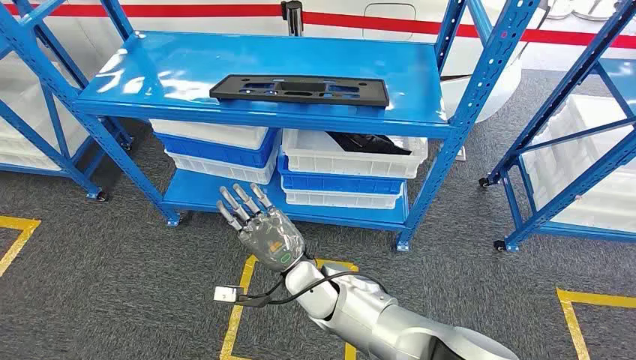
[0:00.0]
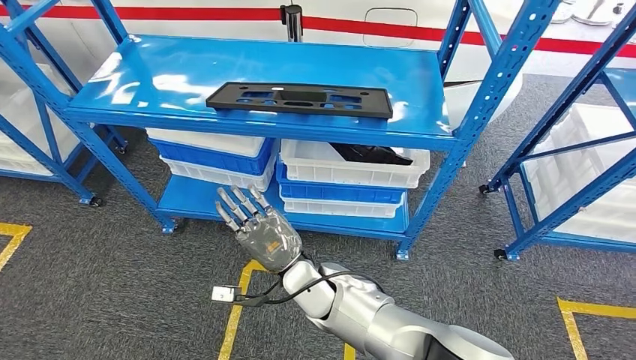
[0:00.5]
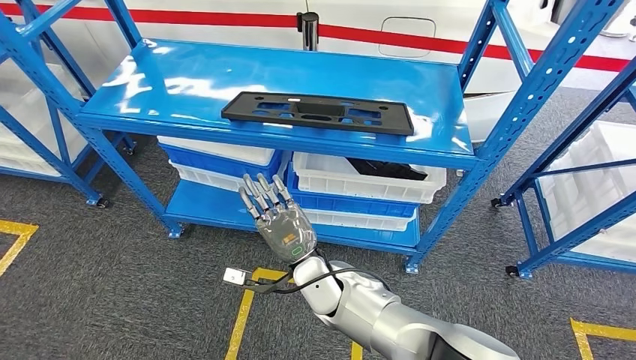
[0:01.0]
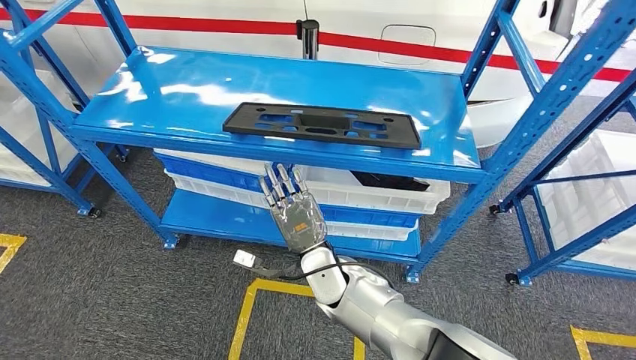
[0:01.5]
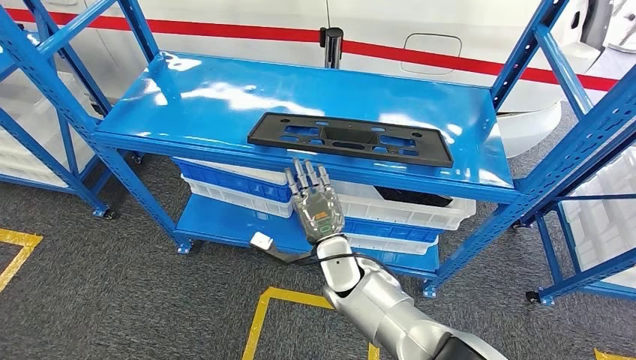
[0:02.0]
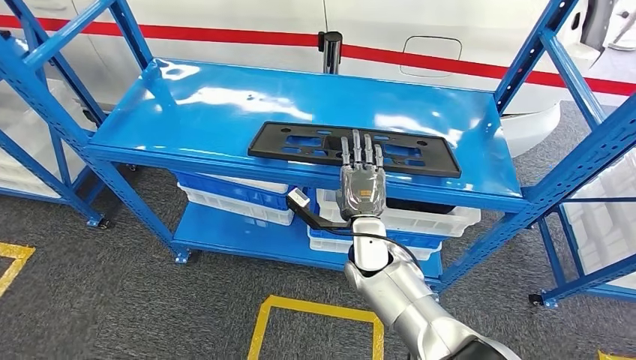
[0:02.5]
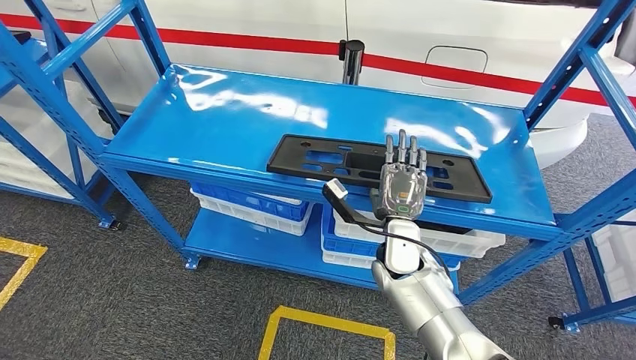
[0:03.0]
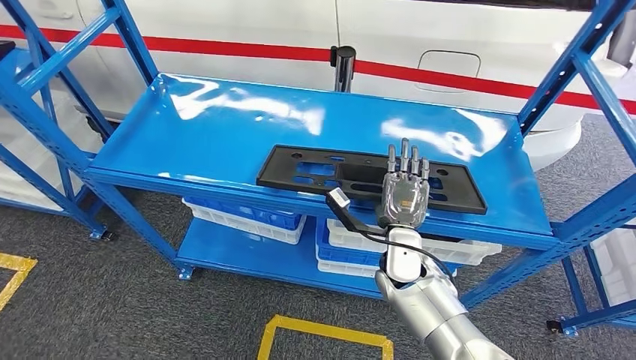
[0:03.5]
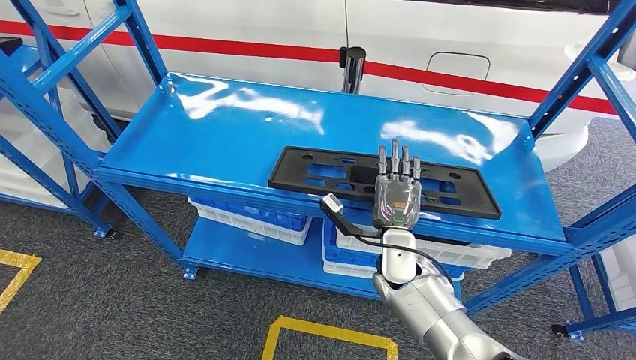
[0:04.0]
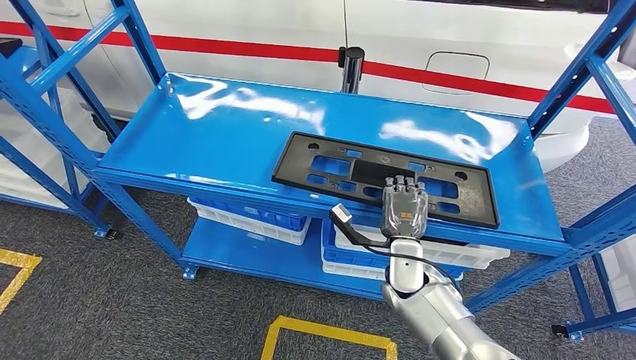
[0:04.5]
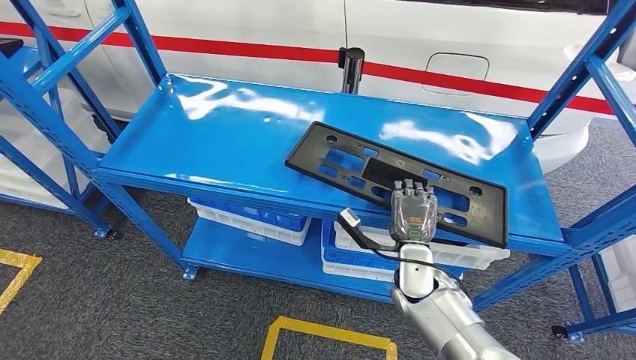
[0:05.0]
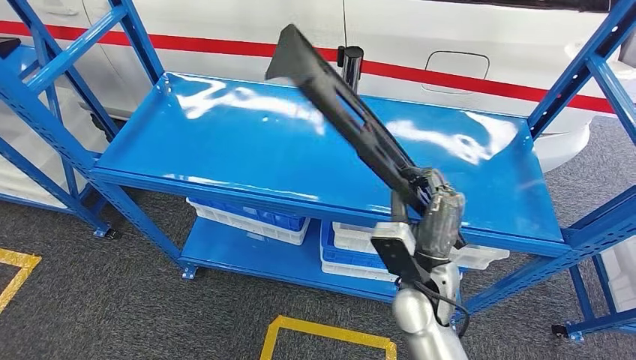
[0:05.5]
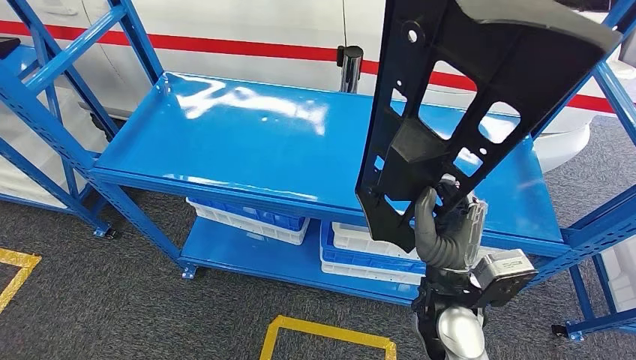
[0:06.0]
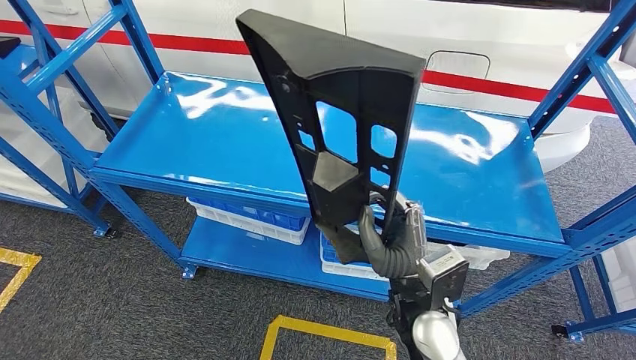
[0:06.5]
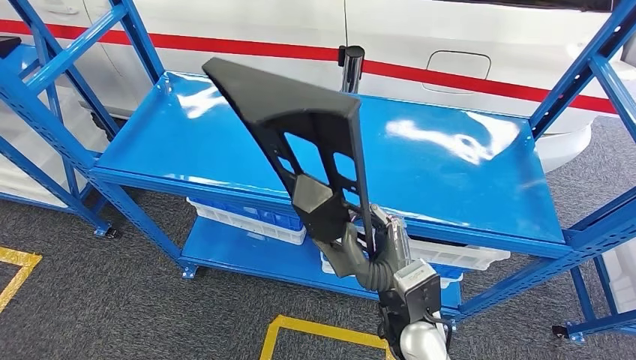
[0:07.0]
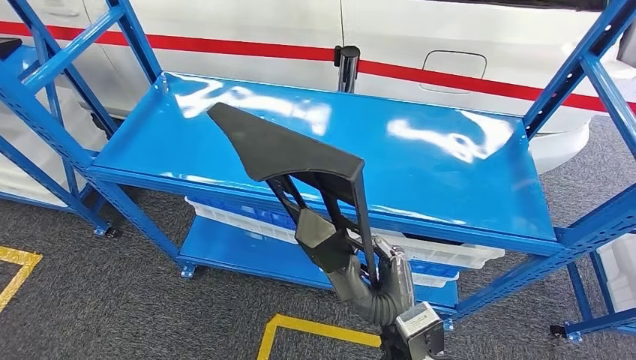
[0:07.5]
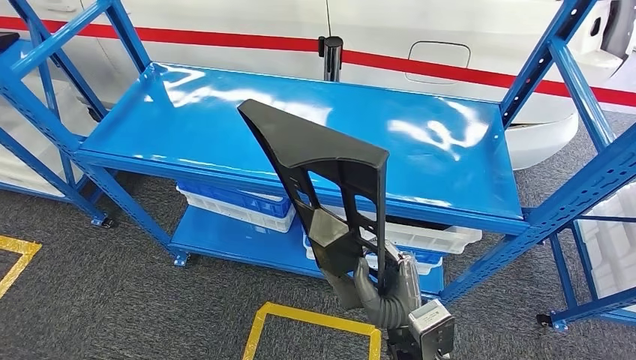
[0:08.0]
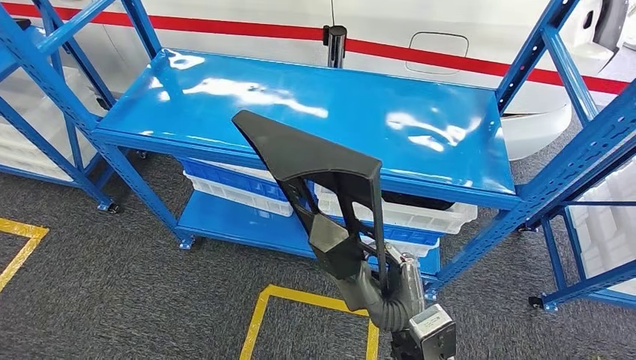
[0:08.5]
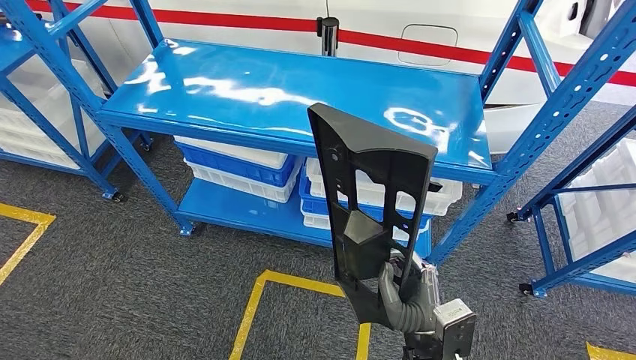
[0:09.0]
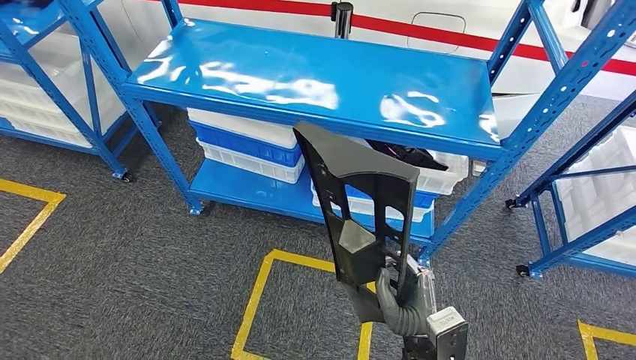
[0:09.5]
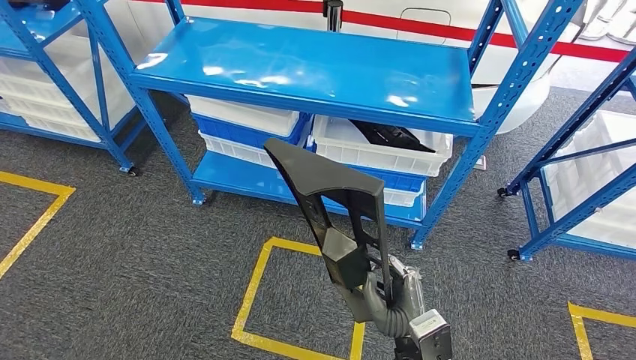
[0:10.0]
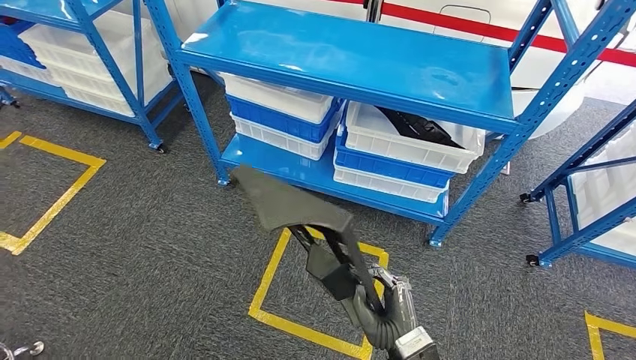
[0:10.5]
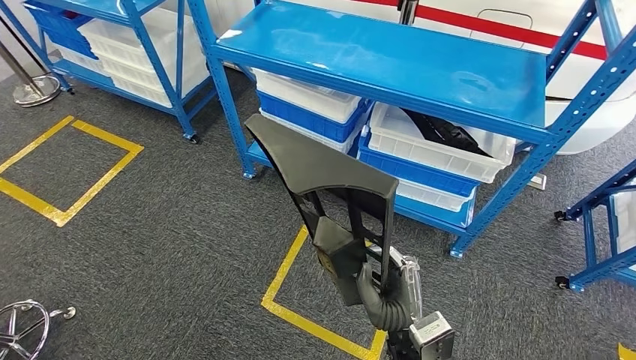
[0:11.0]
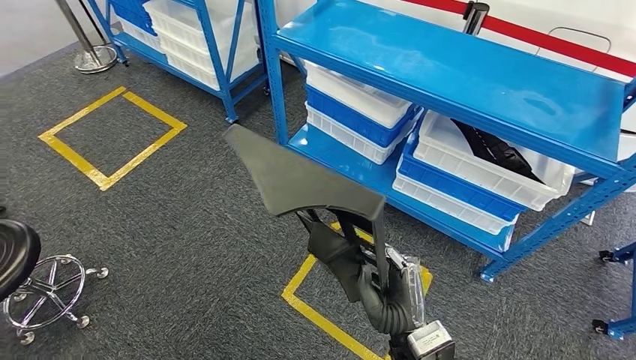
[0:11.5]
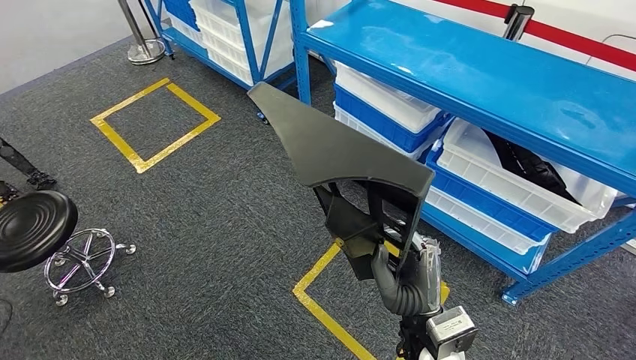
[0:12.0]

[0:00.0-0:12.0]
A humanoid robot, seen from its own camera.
Step, 0:00.0 to 0:09.5: Pick up the large parts from the shelf.

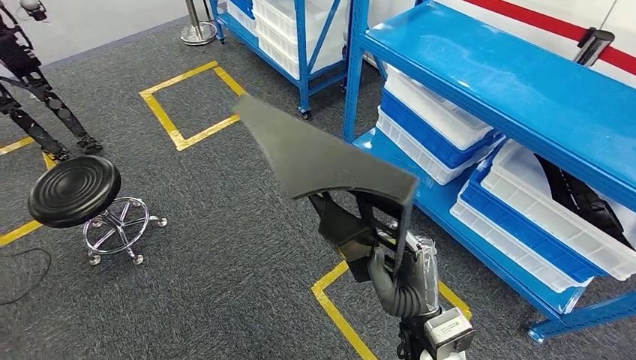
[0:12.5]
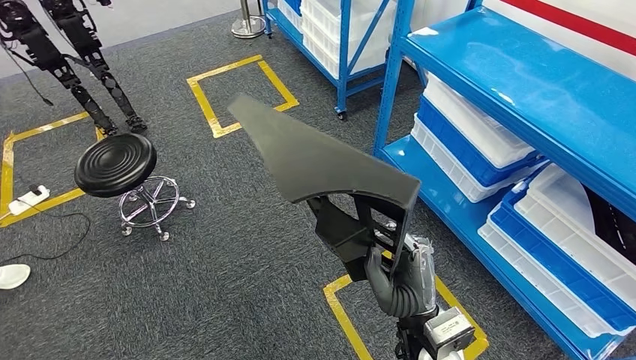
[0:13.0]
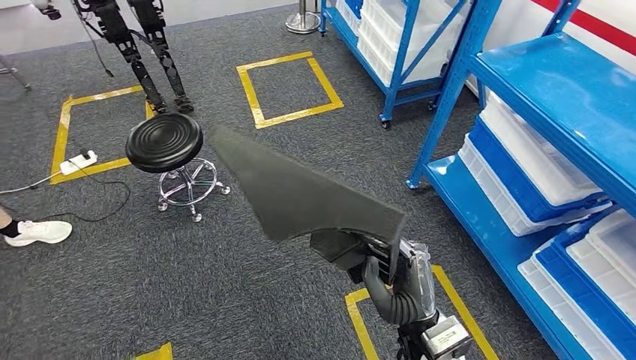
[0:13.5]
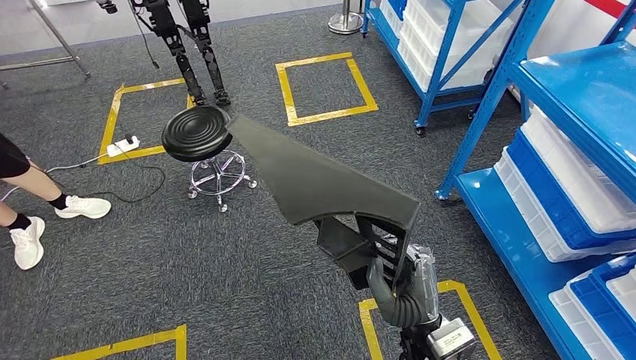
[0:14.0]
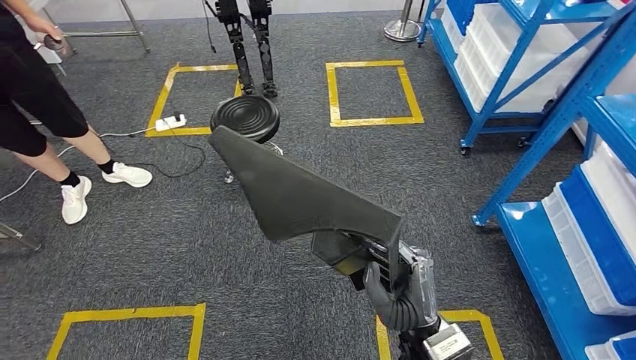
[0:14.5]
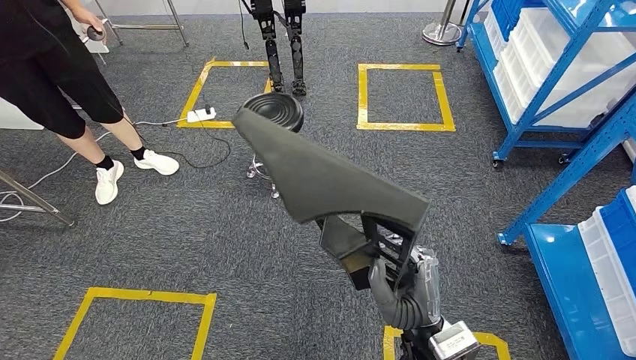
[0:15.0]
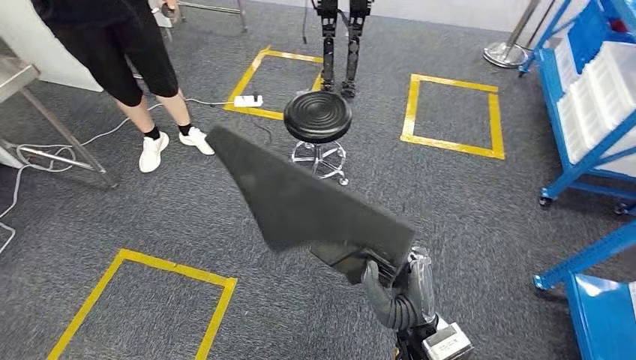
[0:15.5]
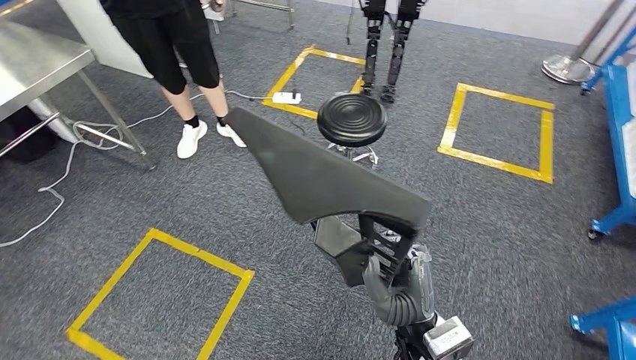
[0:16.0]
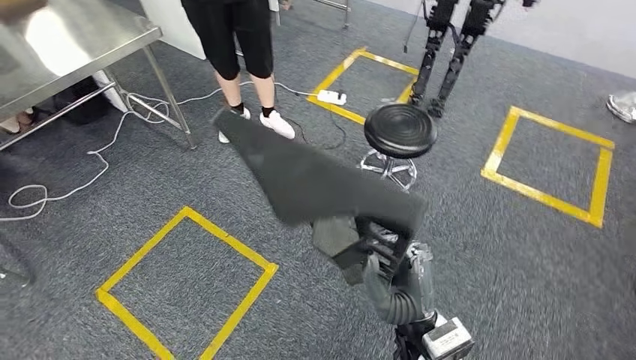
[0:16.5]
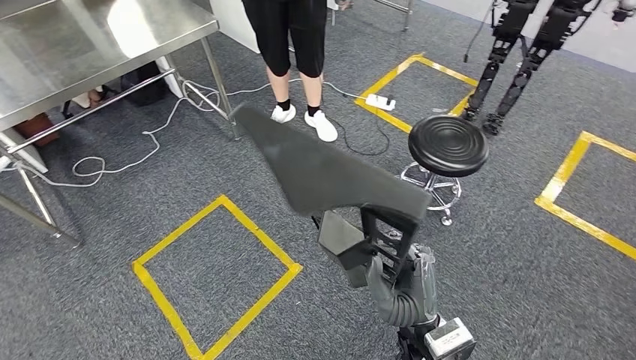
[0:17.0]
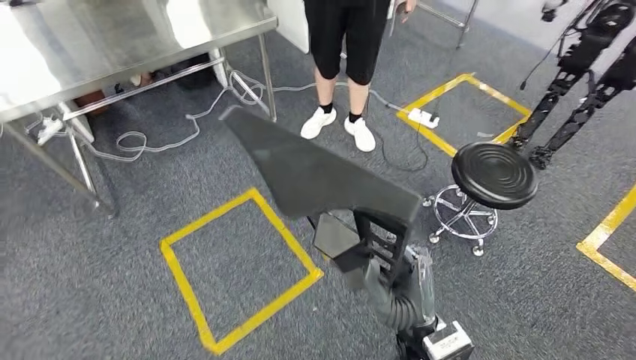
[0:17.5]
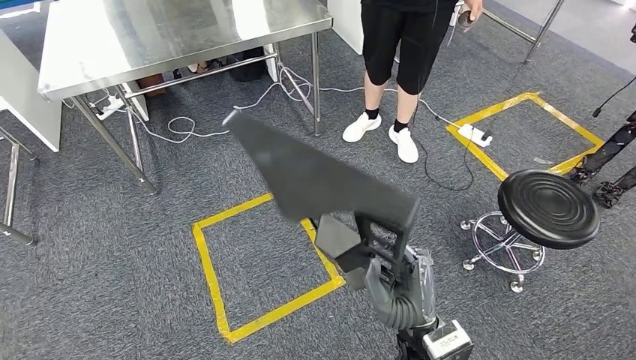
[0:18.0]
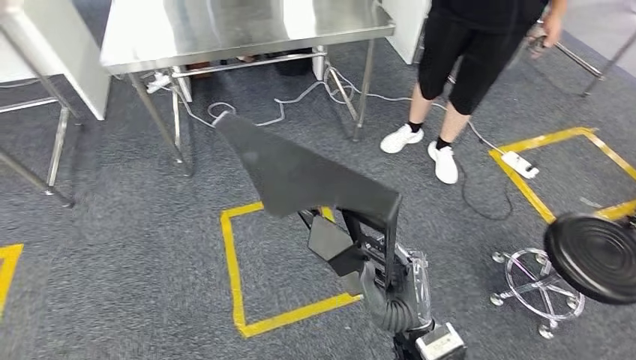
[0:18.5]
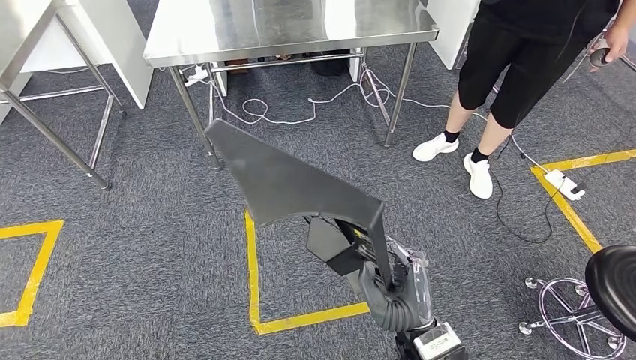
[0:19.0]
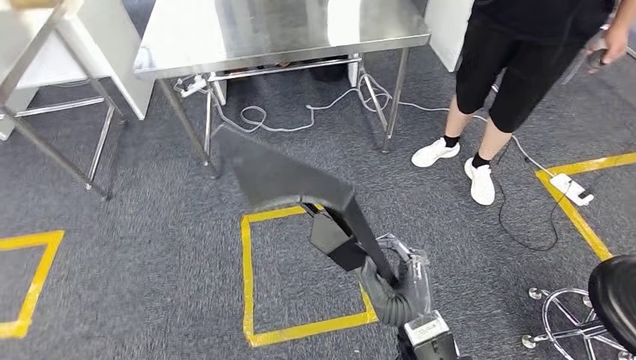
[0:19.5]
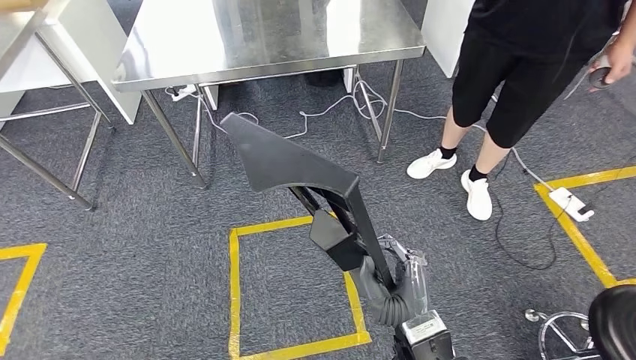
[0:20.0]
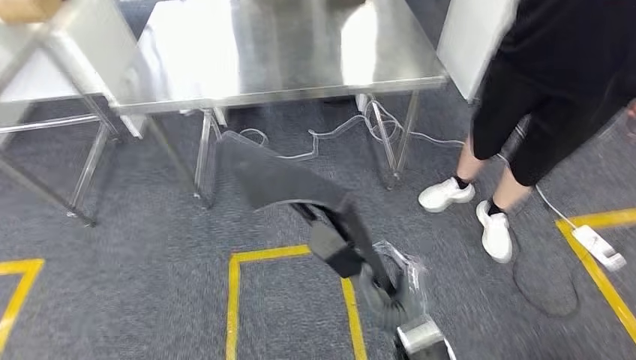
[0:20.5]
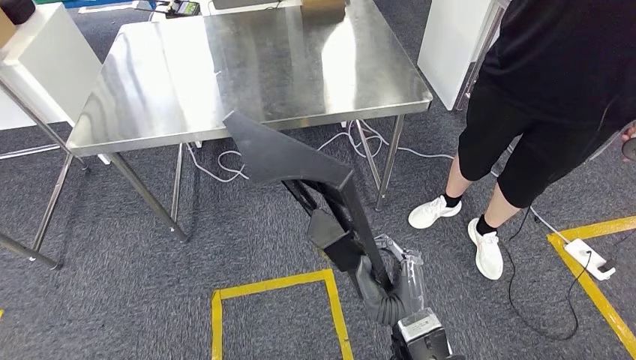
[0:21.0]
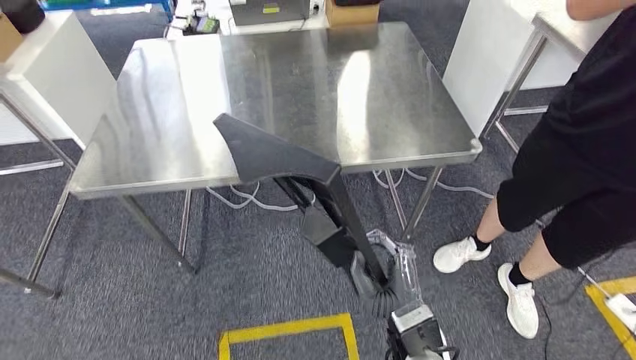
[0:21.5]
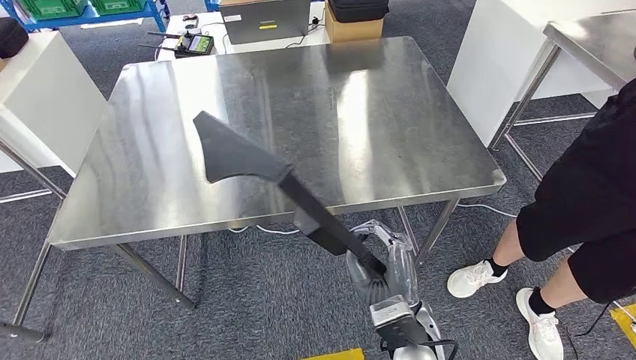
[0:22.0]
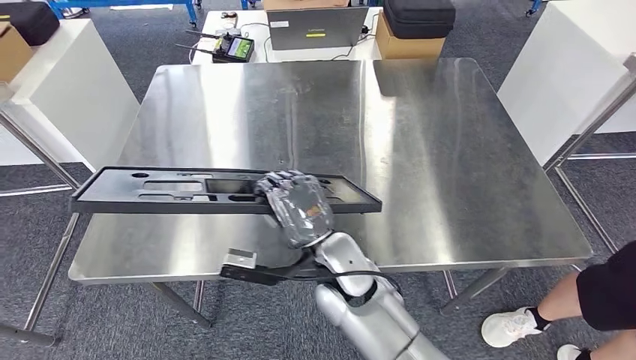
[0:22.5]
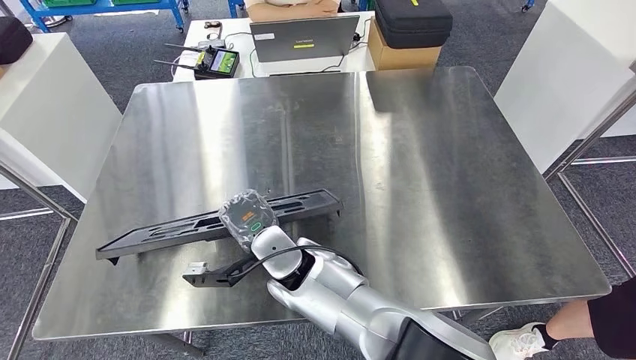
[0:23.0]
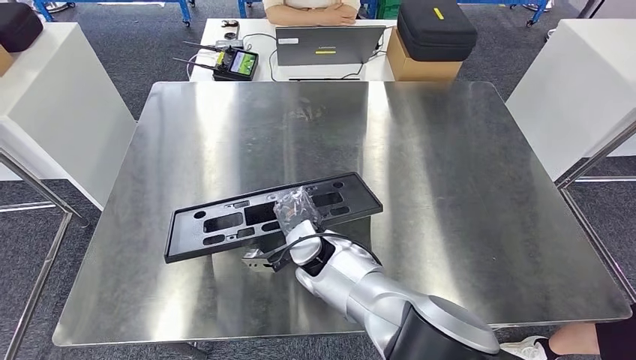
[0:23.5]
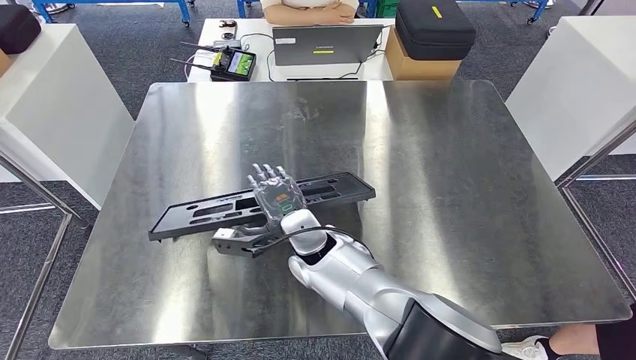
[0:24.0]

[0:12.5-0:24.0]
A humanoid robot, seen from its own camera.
Step, 0:12.5 to 0:21.0: Move the large parts to the workbench.
